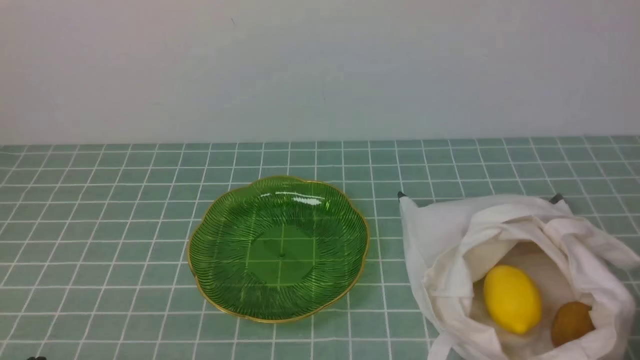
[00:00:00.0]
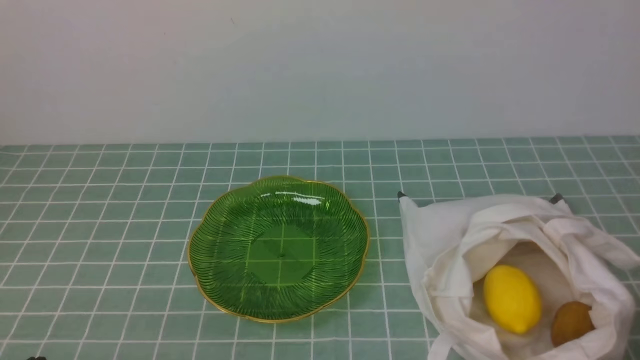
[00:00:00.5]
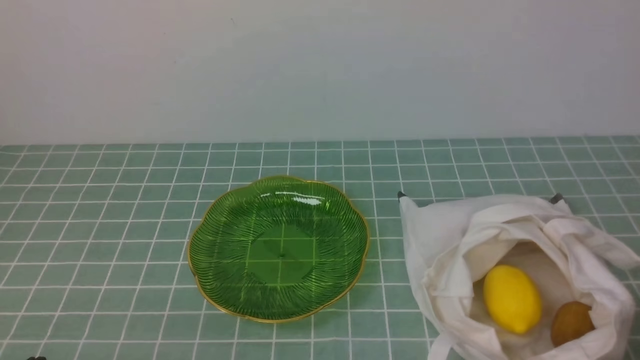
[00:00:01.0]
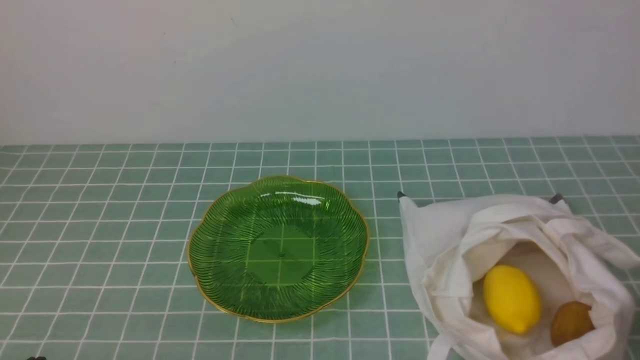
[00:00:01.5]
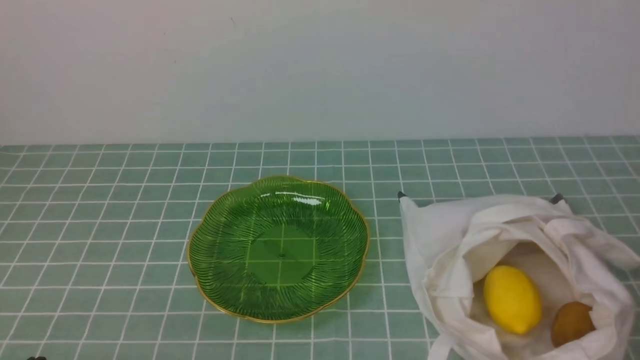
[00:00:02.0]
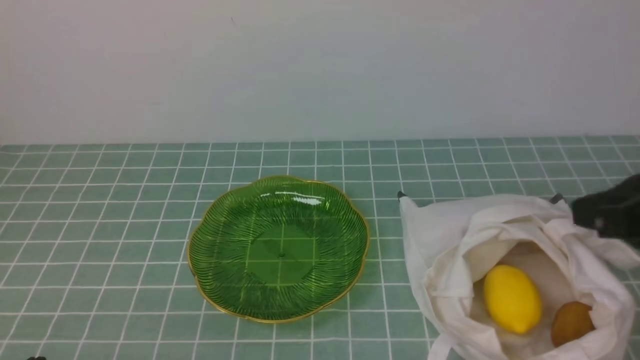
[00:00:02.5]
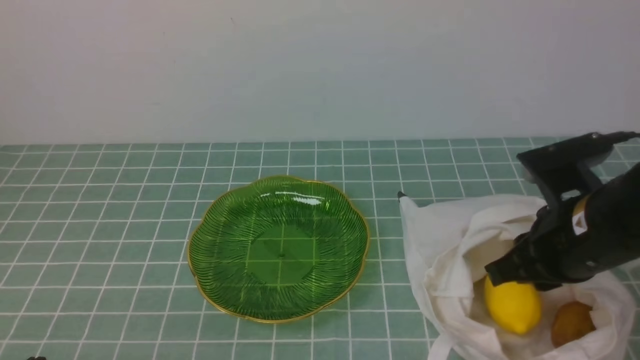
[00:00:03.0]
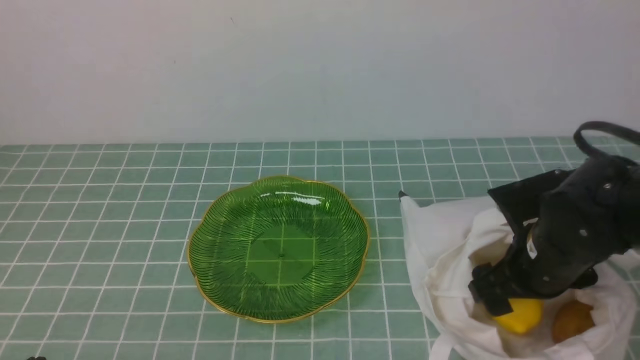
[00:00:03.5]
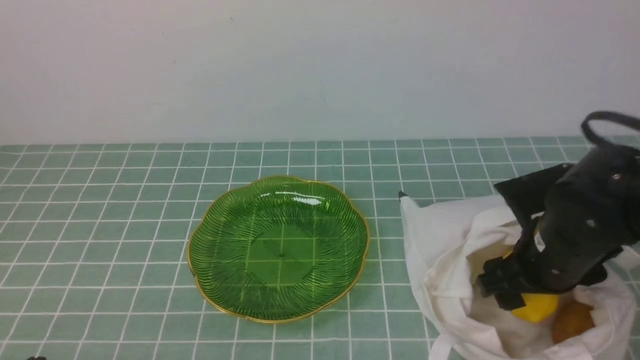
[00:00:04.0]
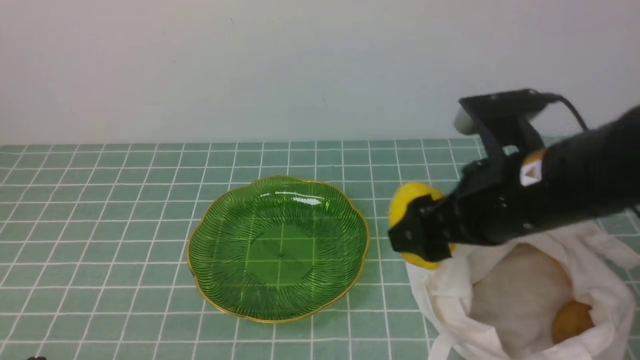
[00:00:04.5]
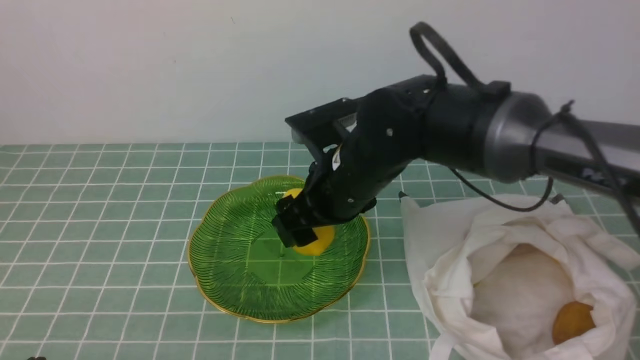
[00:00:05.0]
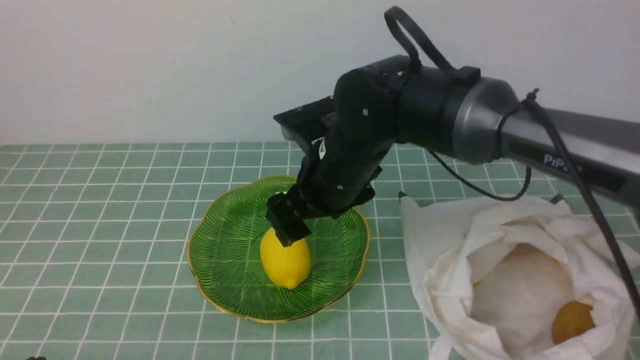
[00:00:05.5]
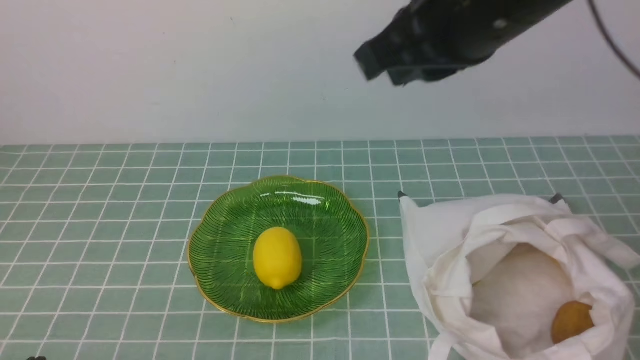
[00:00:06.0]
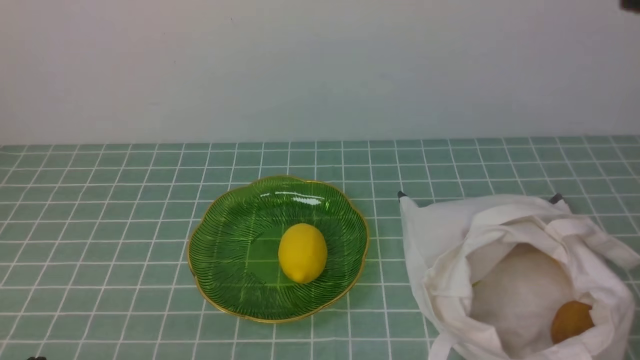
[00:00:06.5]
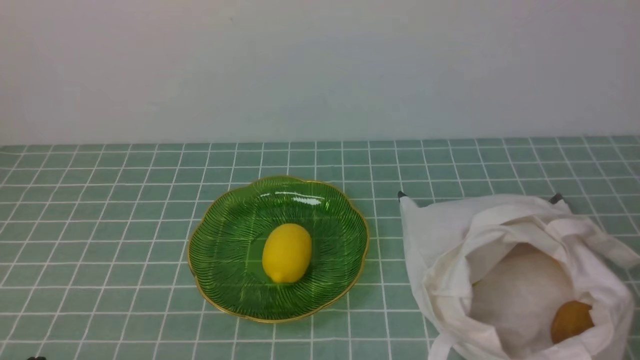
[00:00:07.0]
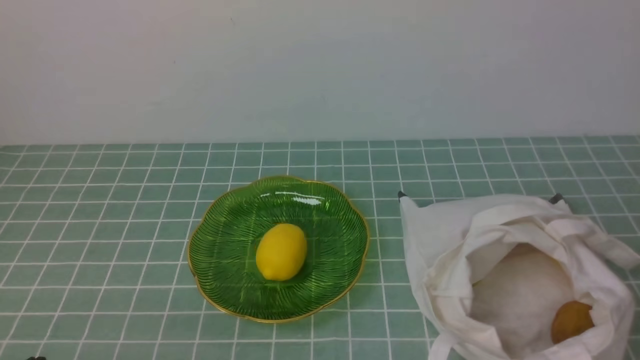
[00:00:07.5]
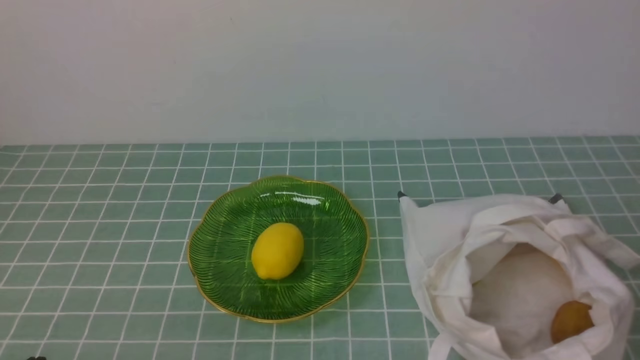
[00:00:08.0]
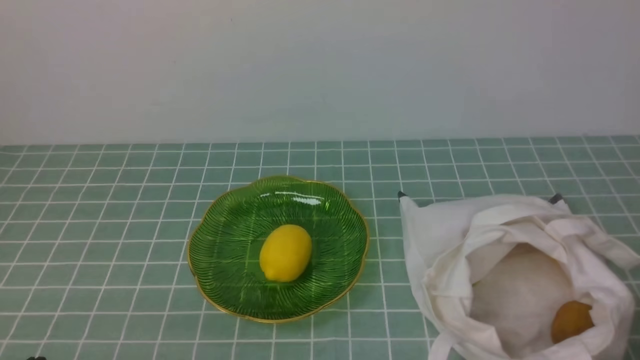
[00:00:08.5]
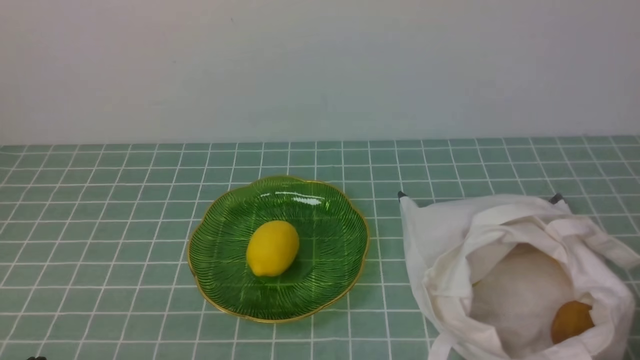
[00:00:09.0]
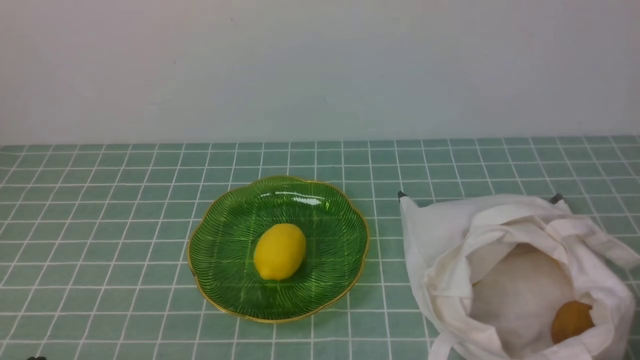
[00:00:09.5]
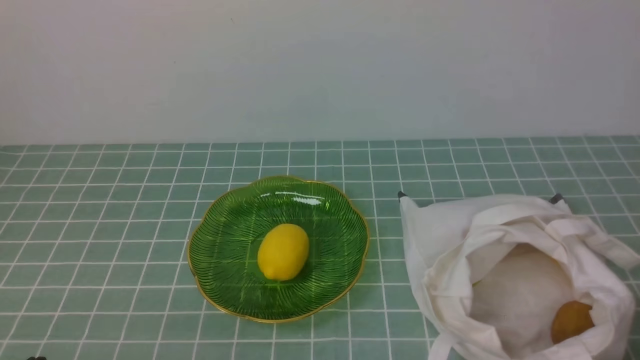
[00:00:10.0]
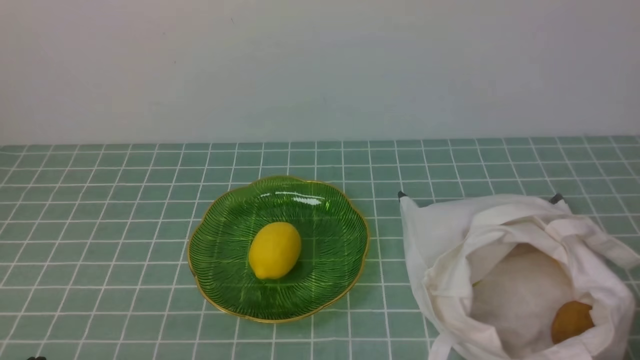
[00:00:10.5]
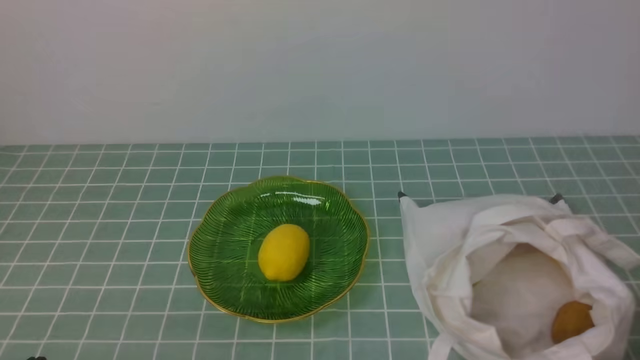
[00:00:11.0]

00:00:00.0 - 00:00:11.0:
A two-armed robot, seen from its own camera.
Step, 00:00:00.0 - 00:00:04.0: use the right arm to grab a lemon from the bag.
Step, 00:00:04.5 - 00:00:05.0: use the right arm to put the lemon into the empty plate on the left.
00:00:02.0 - 00:00:03.5: The right gripper shifts approximately 25 cm forward and downward, and opens.
00:00:03.5 - 00:00:05.5: The right gripper moves to the left and upward, roughly 20 cm.
00:00:05.5 - 00:00:07.5: The right gripper is displaced backward and to the right by roughly 40 cm, and closes up.
00:00:07.5 - 00:00:09.0: The right gripper goes some 20 cm downward.
00:00:09.0 - 00:00:11.0: The two grippers keep their place.

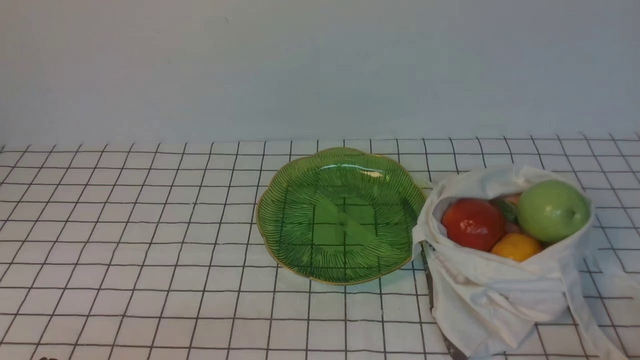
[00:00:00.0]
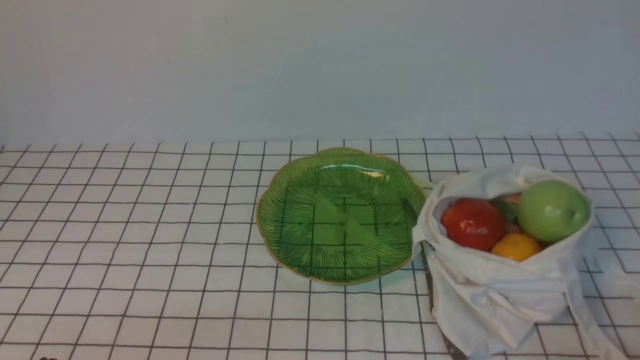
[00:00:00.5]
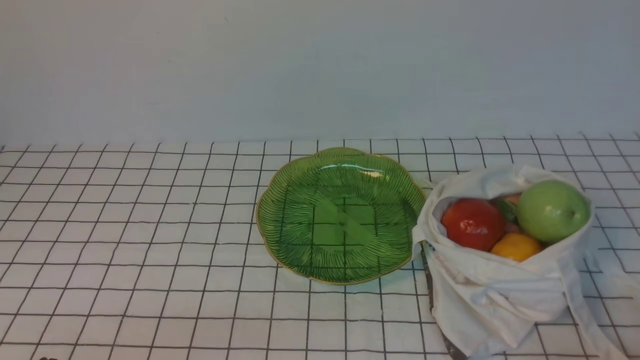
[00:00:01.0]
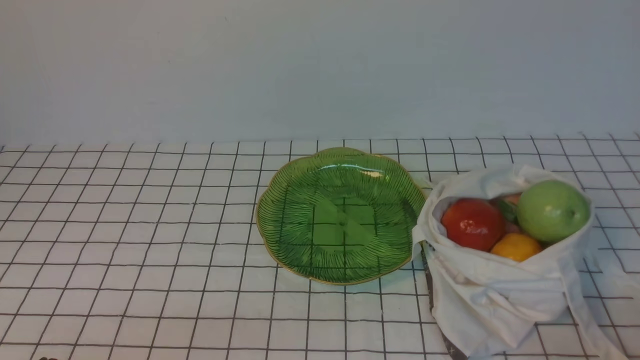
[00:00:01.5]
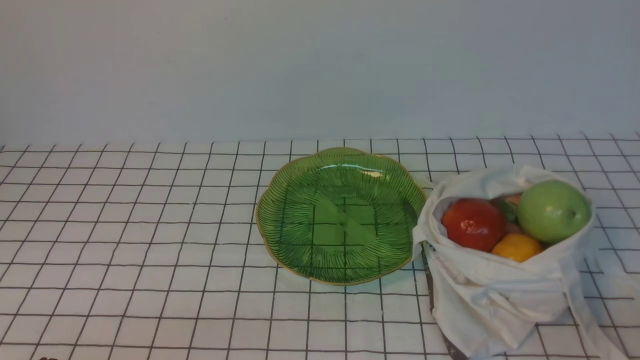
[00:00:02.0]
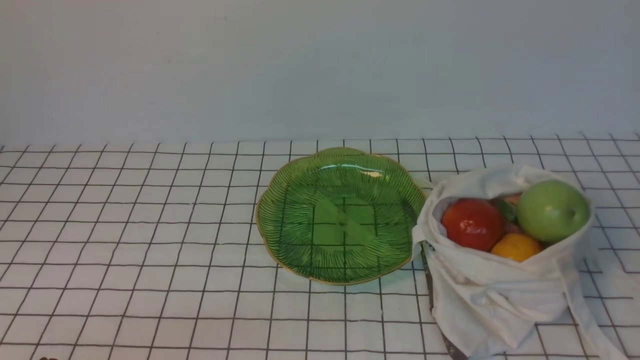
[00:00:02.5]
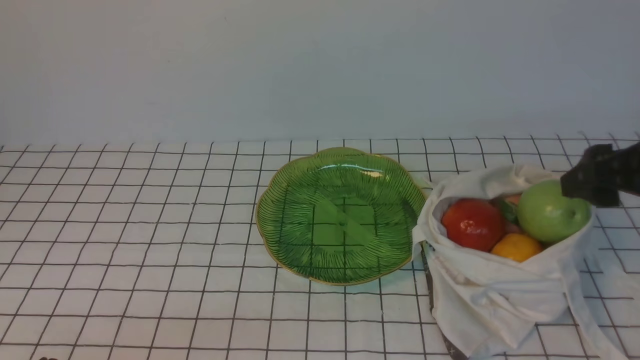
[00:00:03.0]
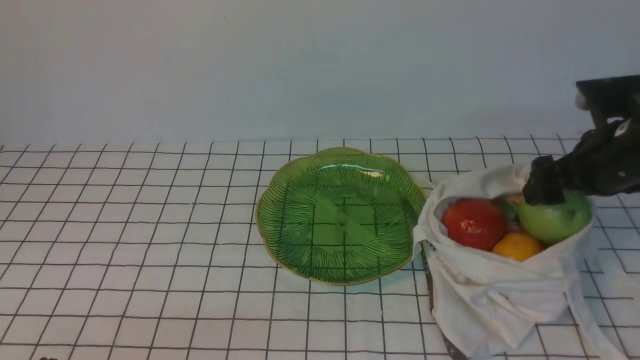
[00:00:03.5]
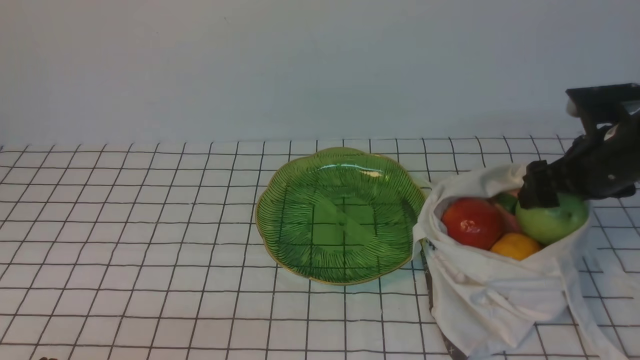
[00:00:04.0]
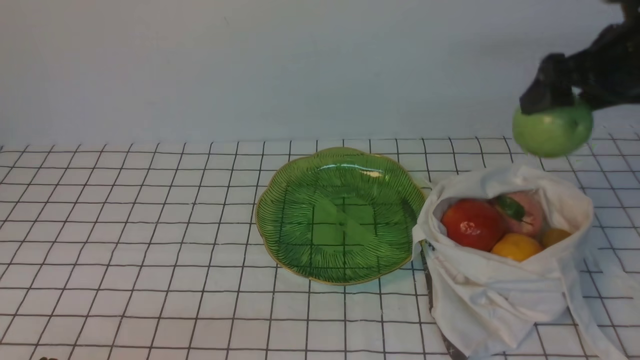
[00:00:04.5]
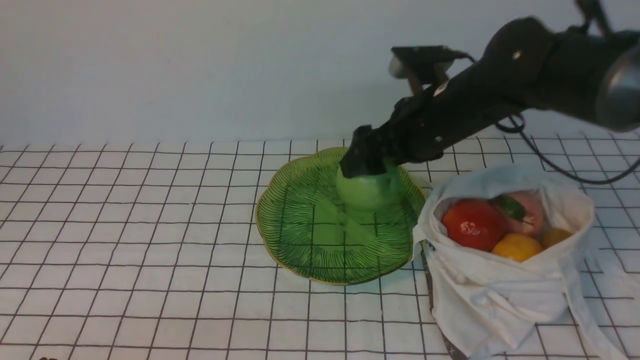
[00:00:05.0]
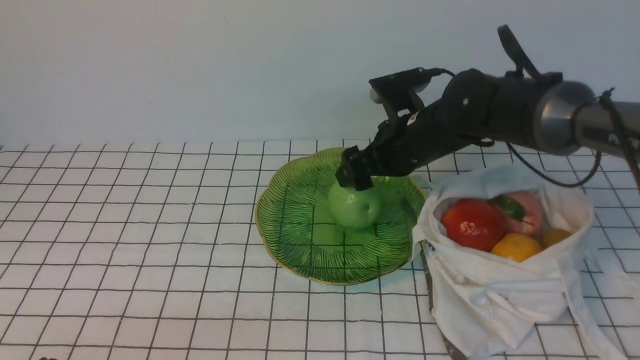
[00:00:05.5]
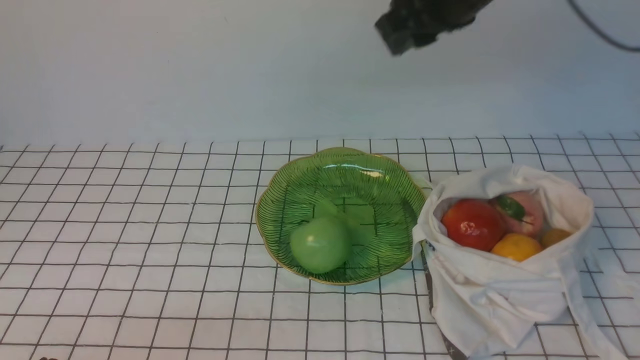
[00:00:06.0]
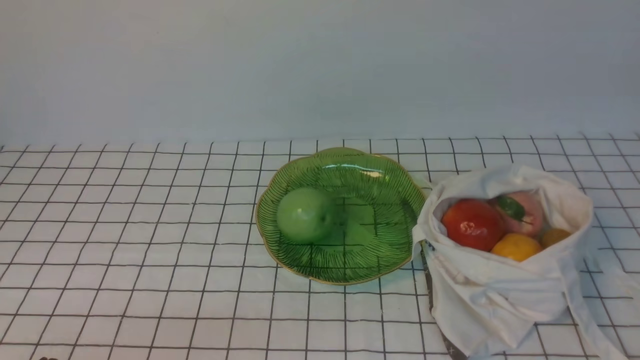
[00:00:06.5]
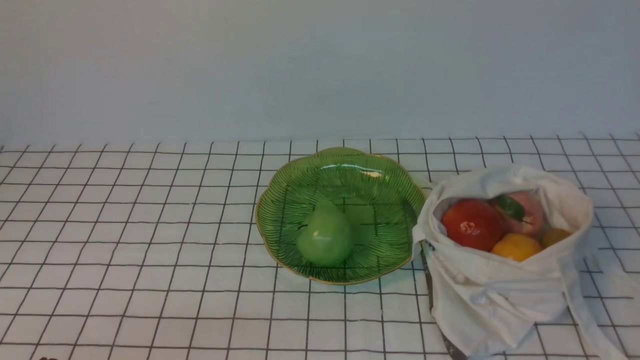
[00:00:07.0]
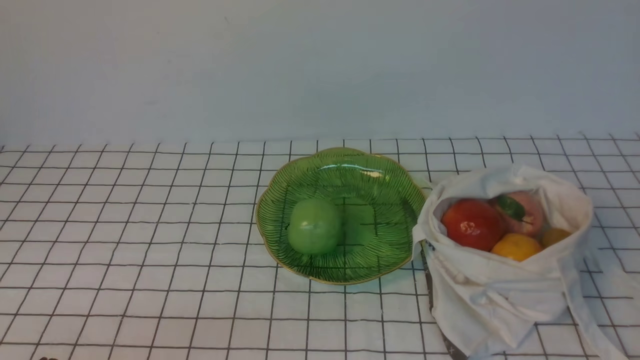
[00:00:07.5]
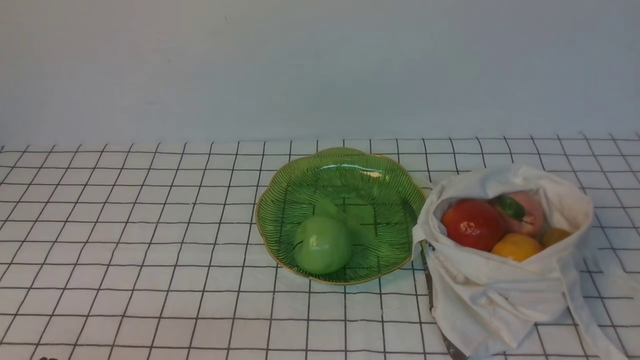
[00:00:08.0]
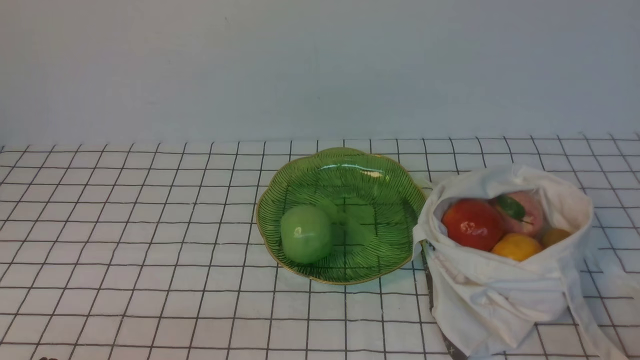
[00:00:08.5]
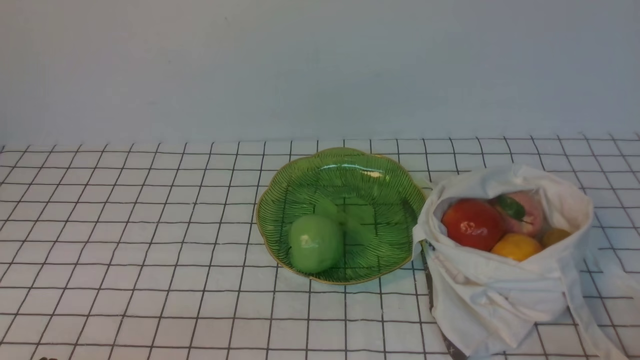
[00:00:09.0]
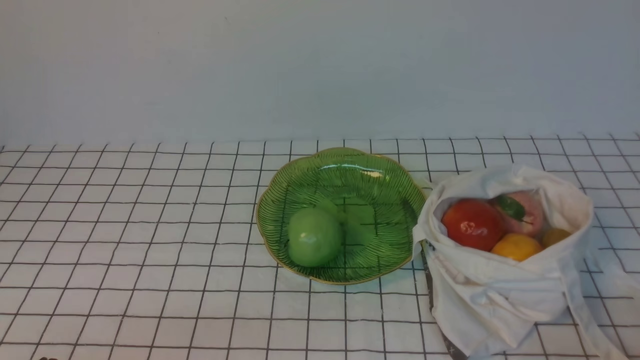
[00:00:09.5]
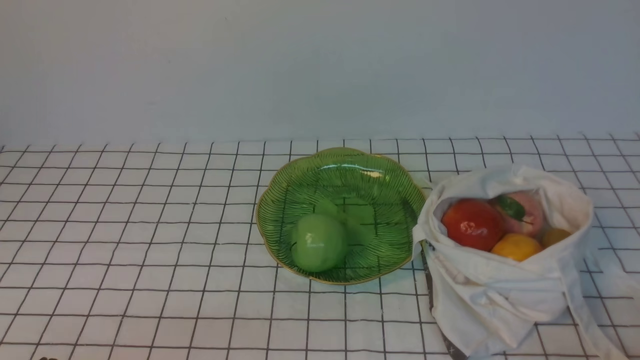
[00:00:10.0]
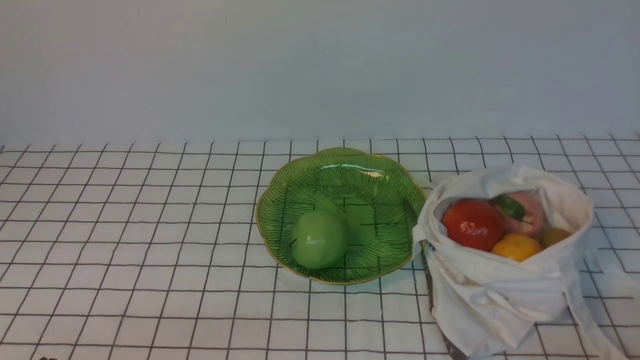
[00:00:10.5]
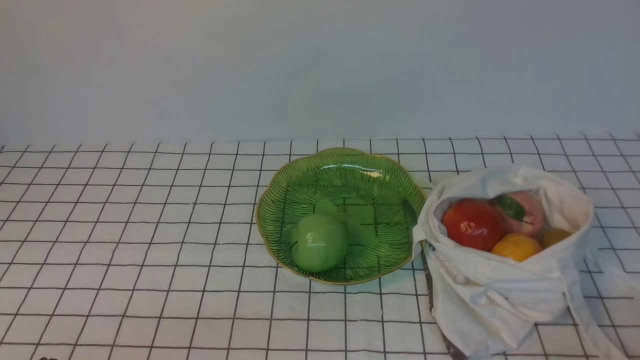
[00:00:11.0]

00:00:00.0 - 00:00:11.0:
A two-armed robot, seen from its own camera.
Step, 00:00:00.0 - 00:00:04.0: use the right arm to grab an apple from the bag.
Step, 00:00:04.5 - 00:00:05.5: use the right arm to put the apple into the empty plate on the left.
00:00:02.0 - 00:00:03.5: The right gripper moves forward, about 30 cm, and opens its fingers.
00:00:03.5 - 00:00:05.5: The right gripper heads to the left and forward, covering about 20 cm.
00:00:05.5 - 00:00:07.5: The right gripper travels backward and to the right by some 40 cm, and closes up.
00:00:09.0 - 00:00:11.0: The two grippers keep their place.
